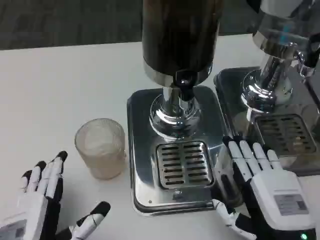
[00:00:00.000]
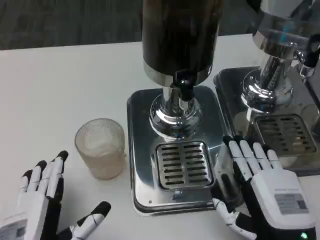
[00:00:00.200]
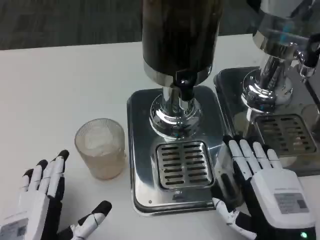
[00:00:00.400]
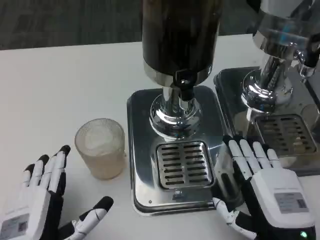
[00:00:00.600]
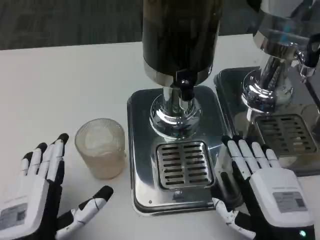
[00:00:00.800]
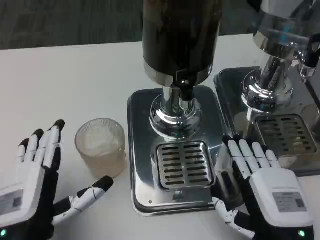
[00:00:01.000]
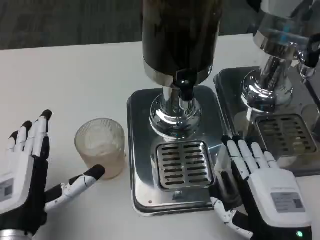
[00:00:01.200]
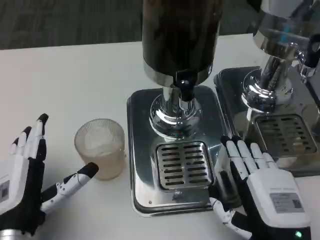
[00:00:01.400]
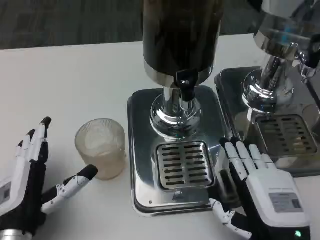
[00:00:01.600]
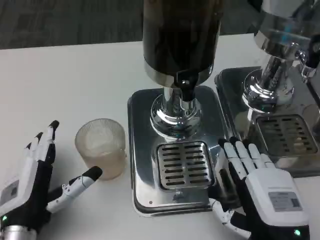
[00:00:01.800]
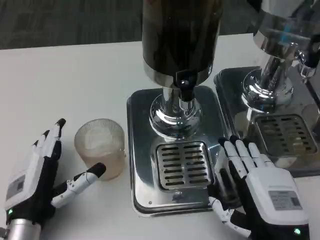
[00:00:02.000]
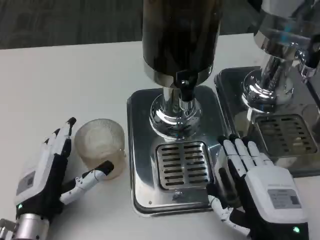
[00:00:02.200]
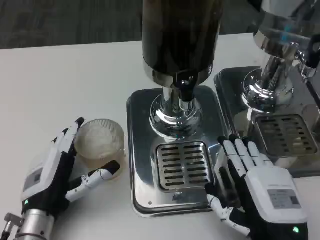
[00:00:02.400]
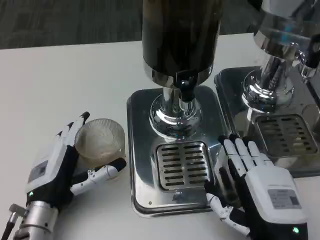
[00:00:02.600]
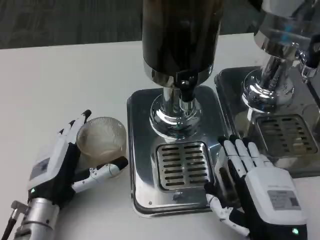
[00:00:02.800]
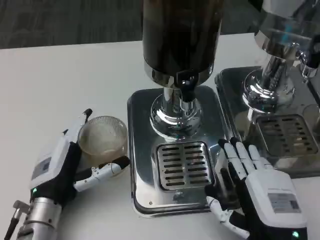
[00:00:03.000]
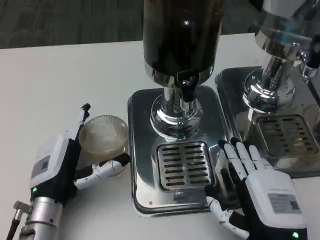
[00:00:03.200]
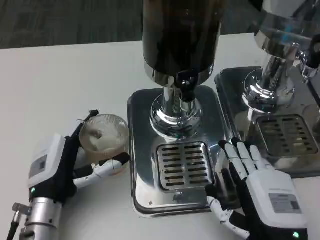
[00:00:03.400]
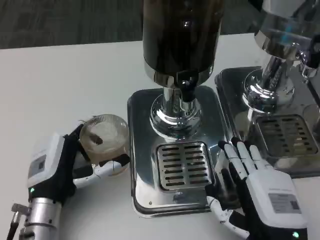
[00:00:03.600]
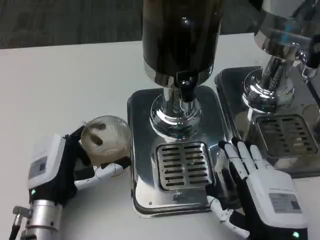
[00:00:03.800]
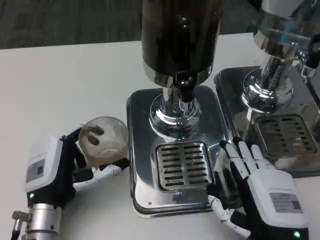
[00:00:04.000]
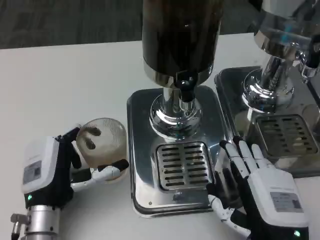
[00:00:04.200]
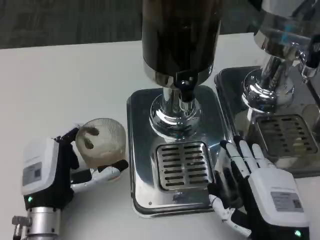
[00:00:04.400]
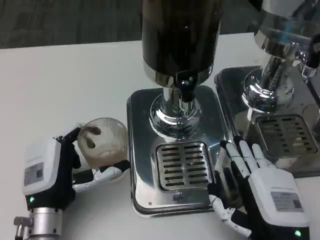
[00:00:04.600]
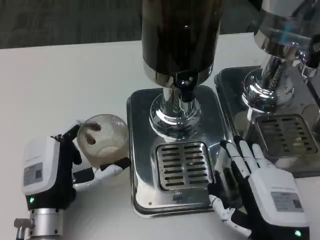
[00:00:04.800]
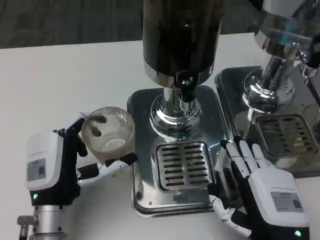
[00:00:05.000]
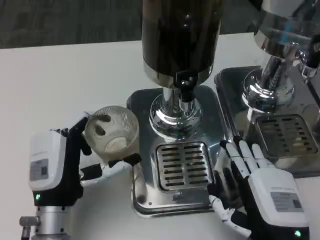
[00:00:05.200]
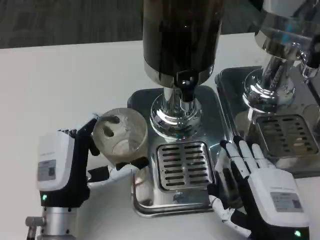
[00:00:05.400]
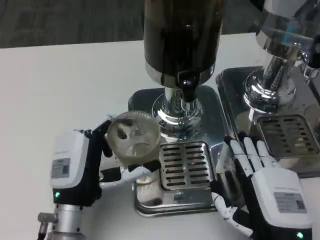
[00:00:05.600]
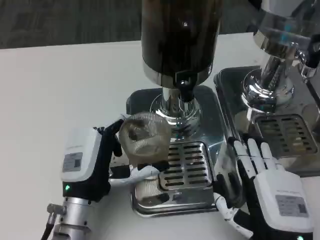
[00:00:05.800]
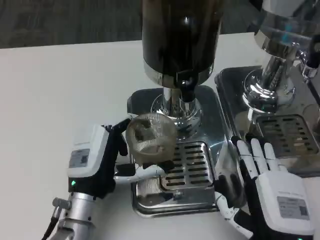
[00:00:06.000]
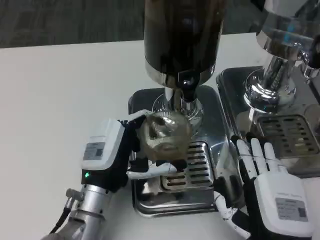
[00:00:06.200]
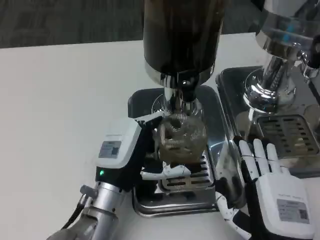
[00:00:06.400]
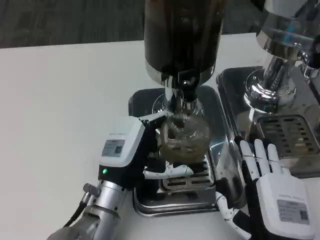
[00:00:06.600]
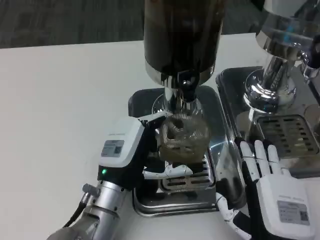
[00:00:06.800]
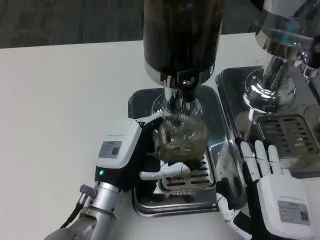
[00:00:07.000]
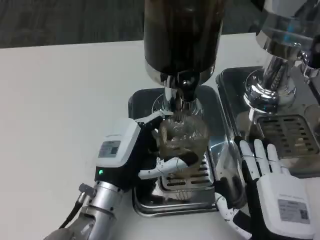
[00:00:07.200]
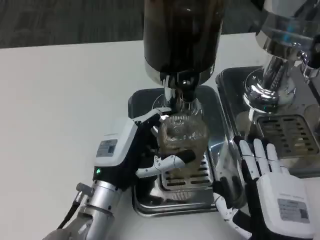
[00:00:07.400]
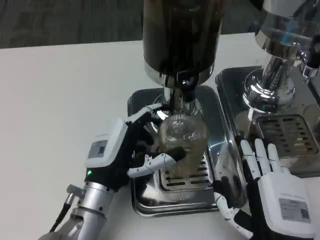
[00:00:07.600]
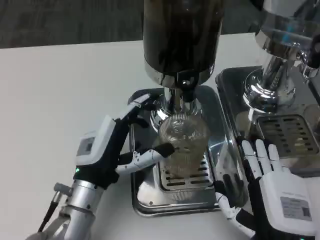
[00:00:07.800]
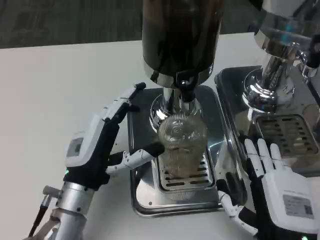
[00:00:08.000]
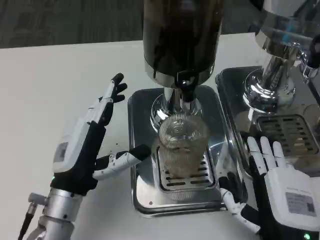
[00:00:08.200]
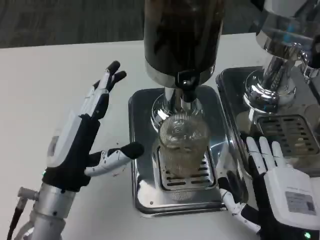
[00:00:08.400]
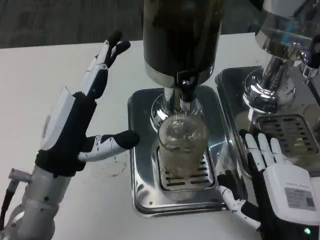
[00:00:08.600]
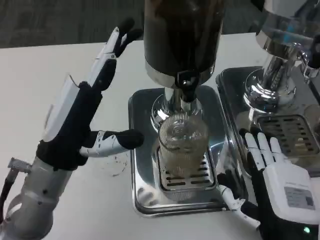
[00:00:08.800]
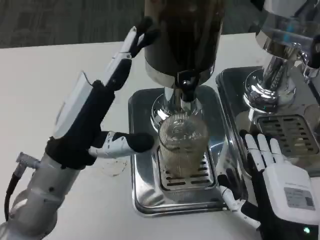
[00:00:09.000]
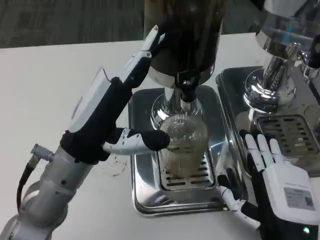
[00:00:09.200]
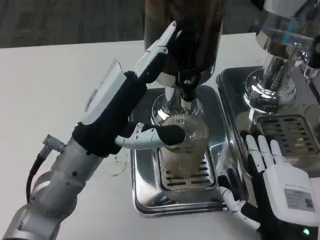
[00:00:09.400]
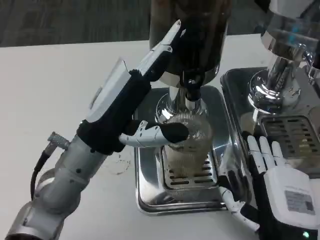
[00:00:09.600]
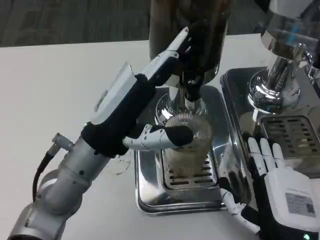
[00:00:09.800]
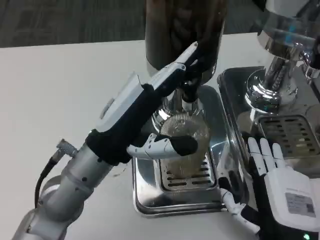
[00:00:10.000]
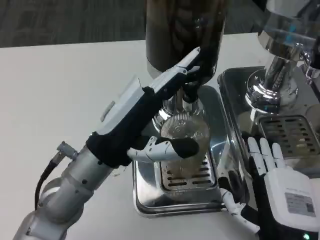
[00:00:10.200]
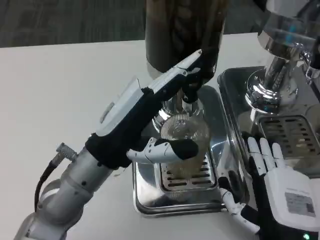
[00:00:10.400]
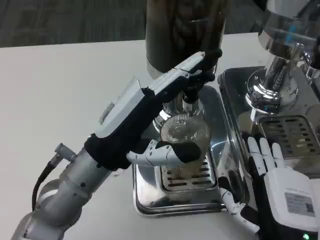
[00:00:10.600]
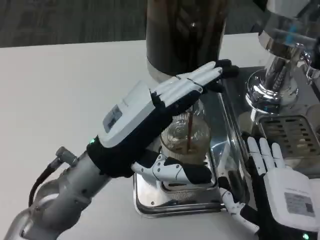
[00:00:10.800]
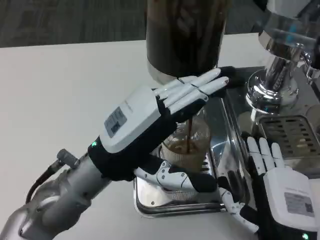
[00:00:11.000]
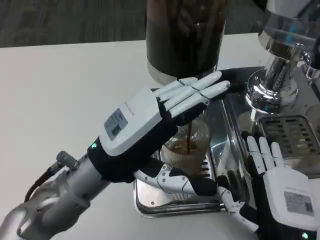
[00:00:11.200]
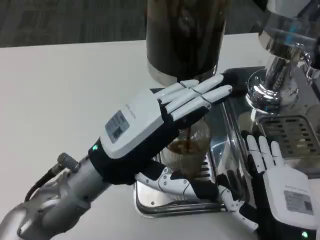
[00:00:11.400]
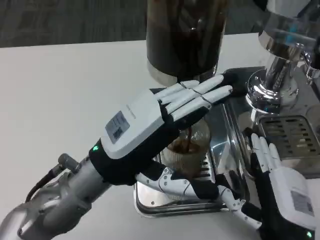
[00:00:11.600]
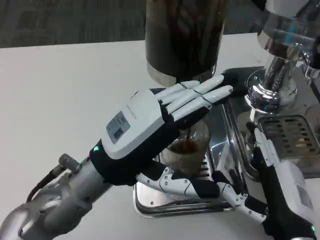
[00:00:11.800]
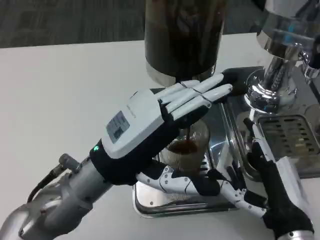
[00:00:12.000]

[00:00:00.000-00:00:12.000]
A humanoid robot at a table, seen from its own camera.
Task of the whole recording: Grasp the cup under the faucet to collect the drink, then remove the cup.
00:00:00.000 to 00:00:01.600: The left hand is displaced forward by roughly 5 cm.
00:00:01.600 to 00:00:03.000: The left hand moves forward, about 5 cm.
00:00:03.000 to 00:00:04.400: There are only small adjustments of the hands.
00:00:04.400 to 00:00:06.000: The left hand shifts by roughly 5 cm.
00:00:06.000 to 00:00:07.600: The hands make only small movements.
00:00:07.600 to 00:00:09.000: The left hand shifts some 10 cm upward.

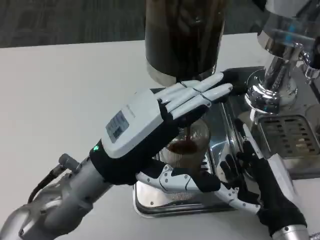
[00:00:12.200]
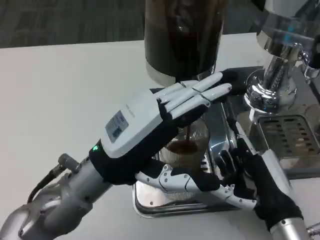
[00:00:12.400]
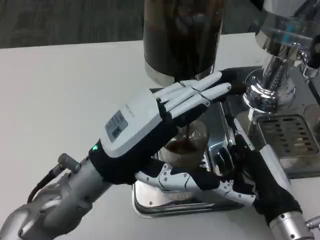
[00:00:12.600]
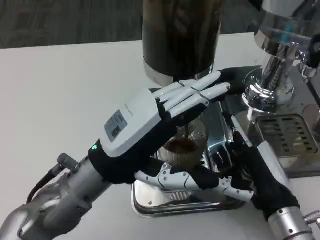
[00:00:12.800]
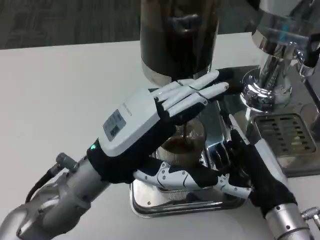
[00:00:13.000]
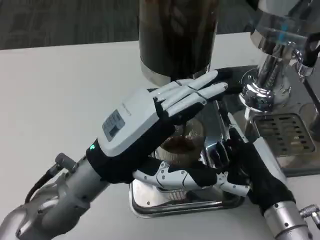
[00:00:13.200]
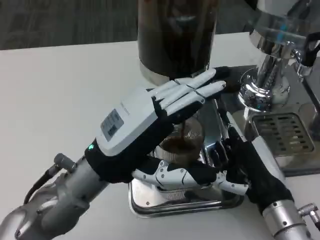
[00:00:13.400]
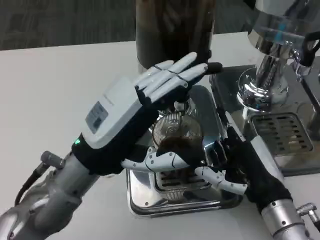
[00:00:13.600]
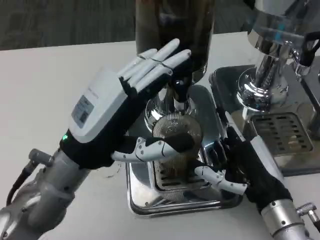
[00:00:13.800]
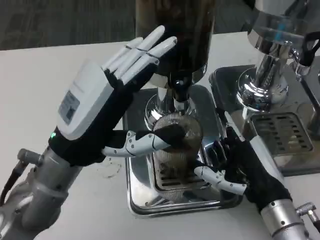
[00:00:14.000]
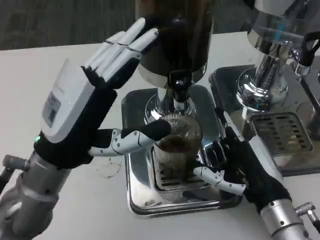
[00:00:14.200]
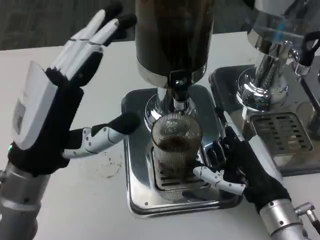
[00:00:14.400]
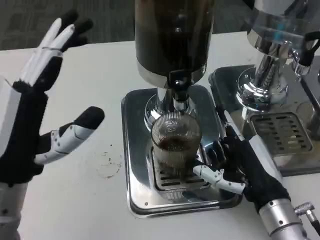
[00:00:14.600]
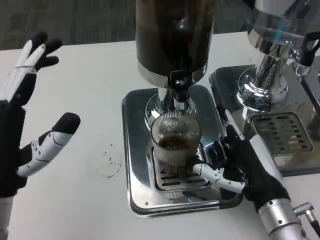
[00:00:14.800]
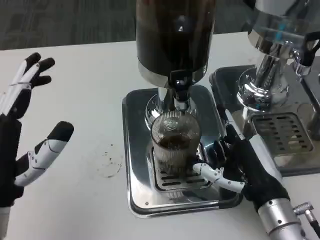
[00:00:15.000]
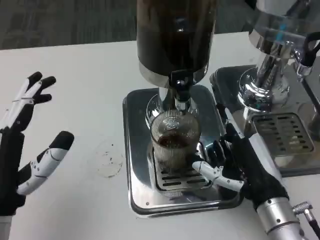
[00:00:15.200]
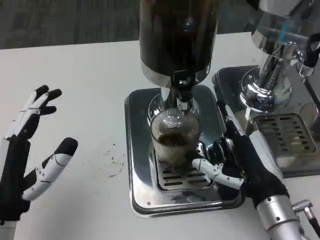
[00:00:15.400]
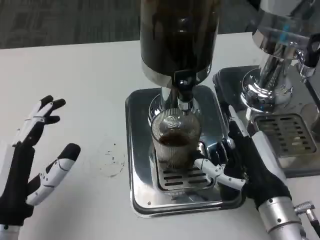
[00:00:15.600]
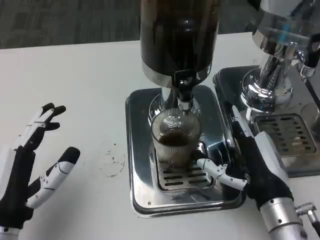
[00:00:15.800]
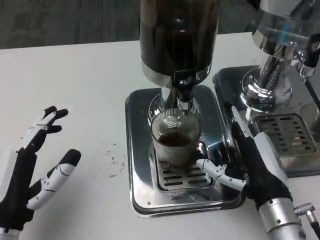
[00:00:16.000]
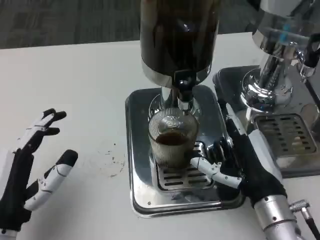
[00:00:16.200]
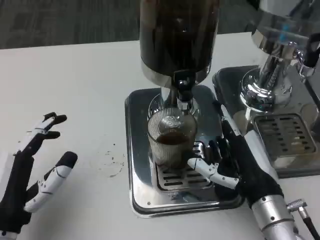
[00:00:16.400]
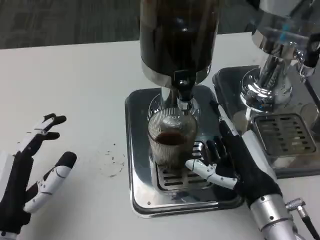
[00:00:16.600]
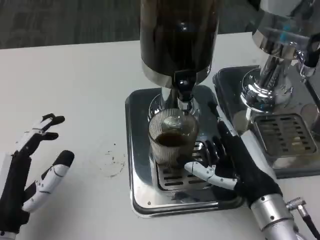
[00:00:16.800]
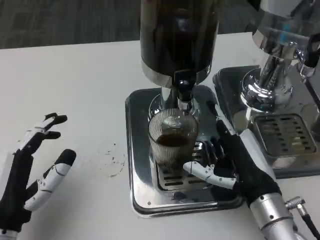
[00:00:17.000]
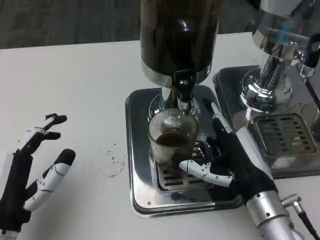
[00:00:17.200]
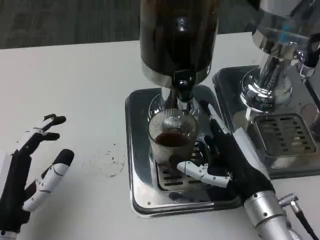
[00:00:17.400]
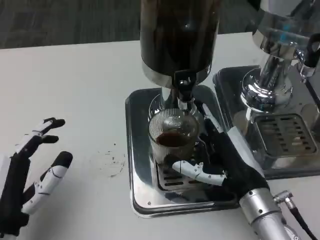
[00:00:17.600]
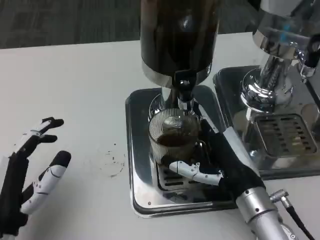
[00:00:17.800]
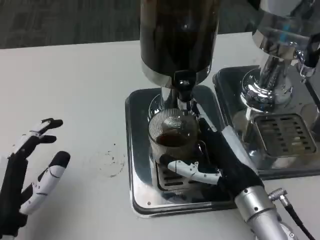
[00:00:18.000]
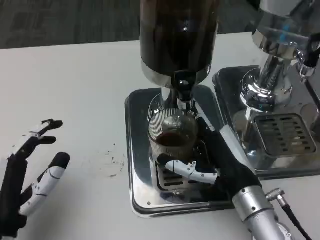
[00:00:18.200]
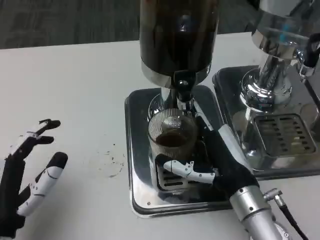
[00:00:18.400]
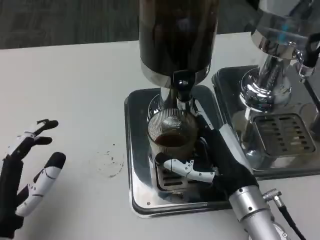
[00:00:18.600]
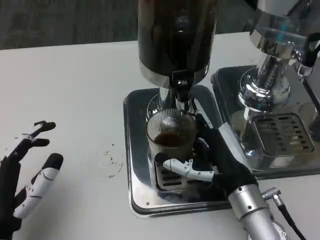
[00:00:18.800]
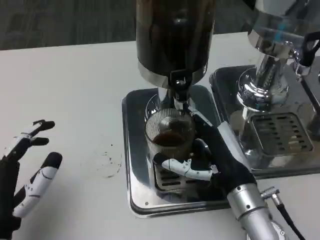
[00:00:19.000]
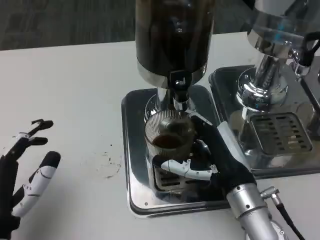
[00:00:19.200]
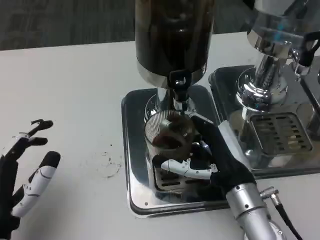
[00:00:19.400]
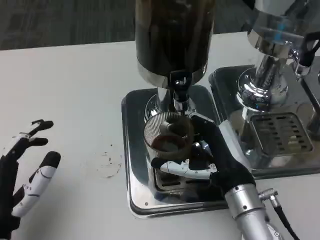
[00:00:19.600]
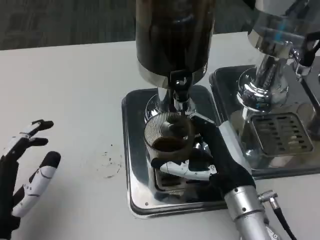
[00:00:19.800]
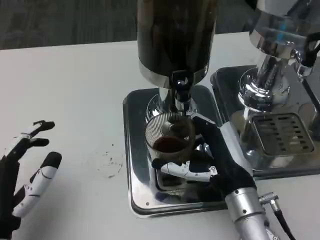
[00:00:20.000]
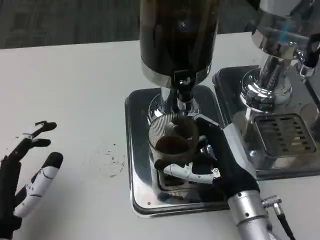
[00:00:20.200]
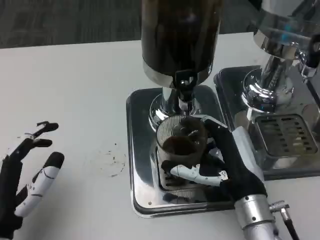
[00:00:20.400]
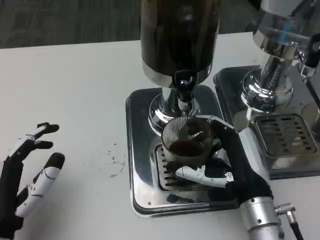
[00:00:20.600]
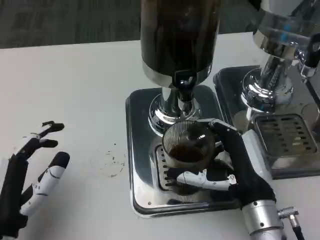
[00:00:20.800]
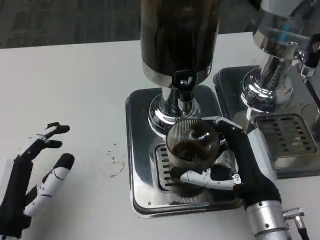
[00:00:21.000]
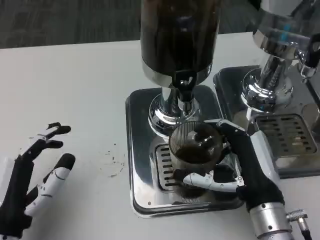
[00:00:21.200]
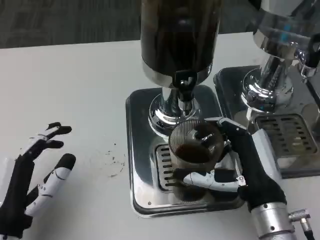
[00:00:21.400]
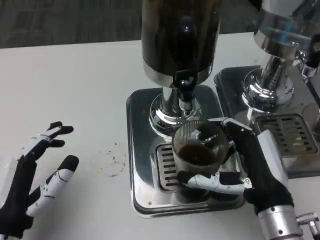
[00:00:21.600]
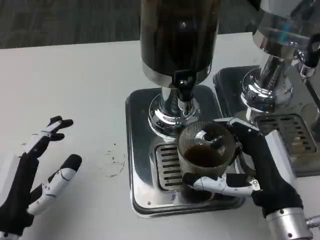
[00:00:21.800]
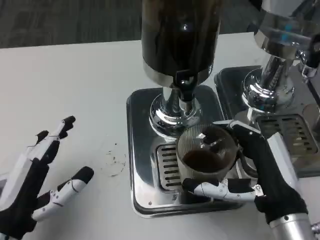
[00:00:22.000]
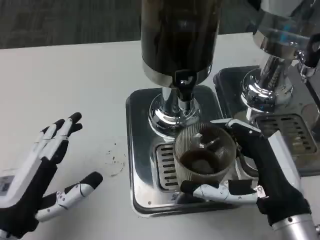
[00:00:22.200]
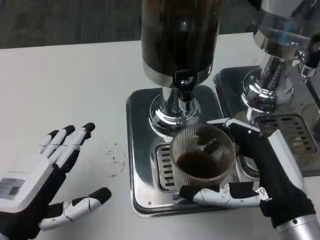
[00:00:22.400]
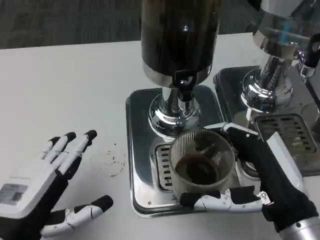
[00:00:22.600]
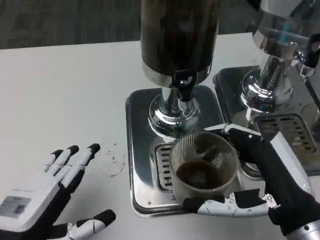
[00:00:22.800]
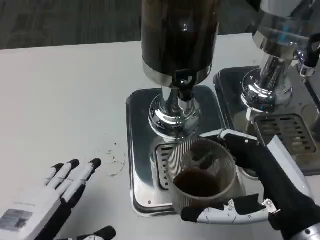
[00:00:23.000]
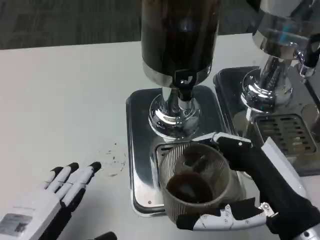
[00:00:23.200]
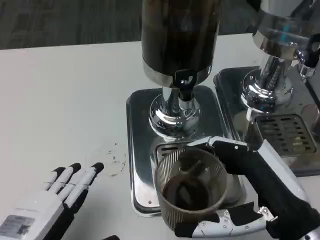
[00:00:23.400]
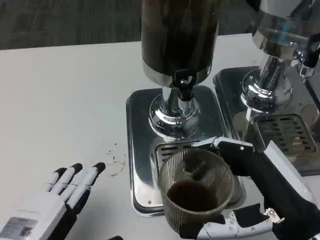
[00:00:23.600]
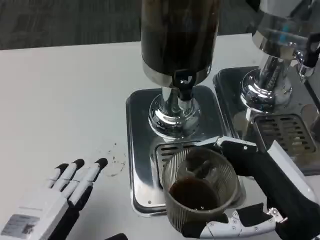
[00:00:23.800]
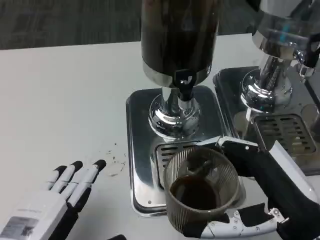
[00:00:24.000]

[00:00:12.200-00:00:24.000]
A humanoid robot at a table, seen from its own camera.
Task of the whole recording: Grasp the cup under the faucet to collect the drink, then remove the cup.
00:00:13.600 to 00:00:15.200: The left hand is displaced to the left, backward and downward by roughly 10 cm.
00:00:16.600 to 00:00:18.200: The hands stay close to where they were, moving slightly.
00:00:21.000 to 00:00:22.600: The right hand travels upward and backward by approximately 10 cm.
